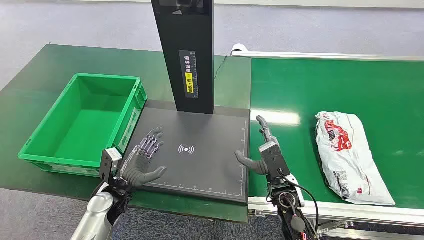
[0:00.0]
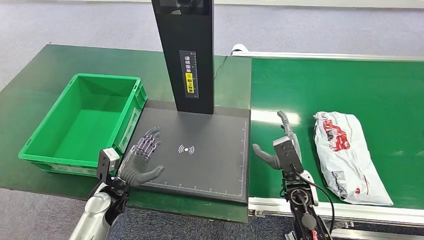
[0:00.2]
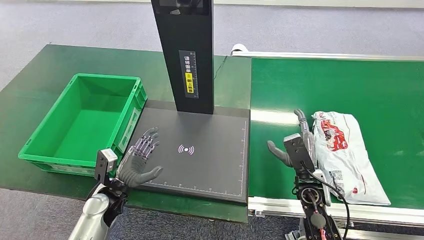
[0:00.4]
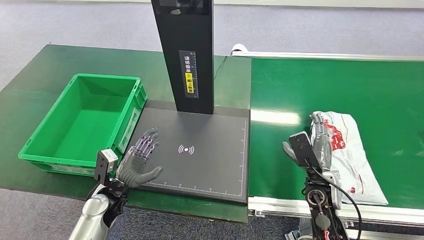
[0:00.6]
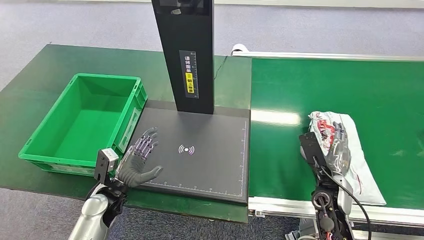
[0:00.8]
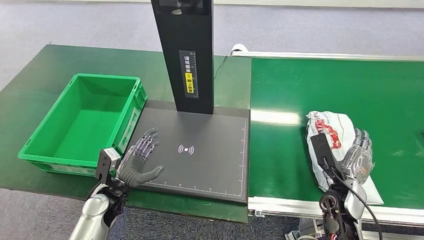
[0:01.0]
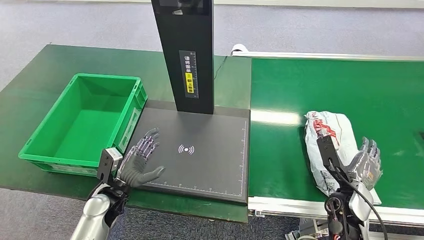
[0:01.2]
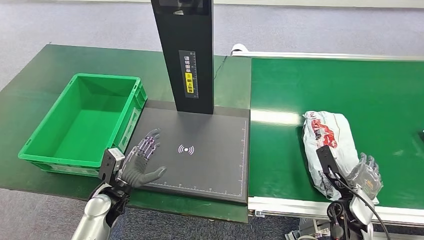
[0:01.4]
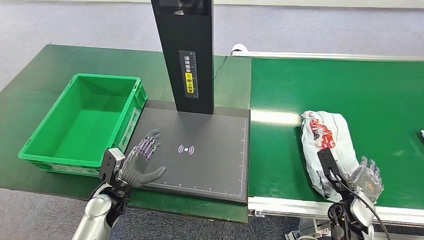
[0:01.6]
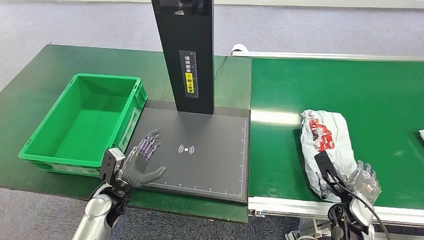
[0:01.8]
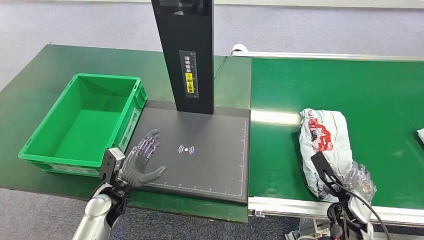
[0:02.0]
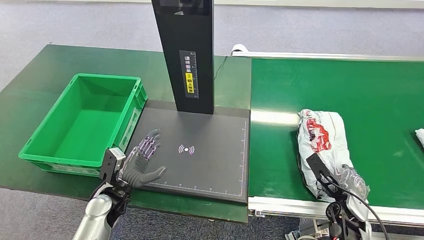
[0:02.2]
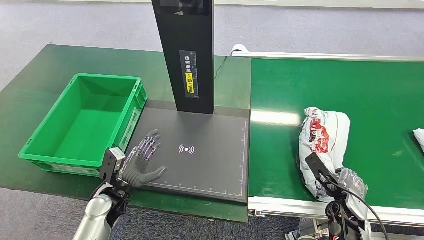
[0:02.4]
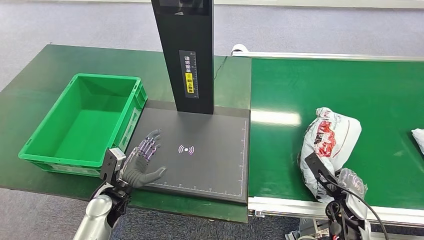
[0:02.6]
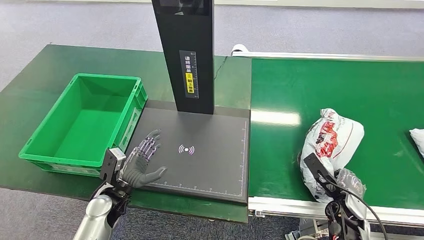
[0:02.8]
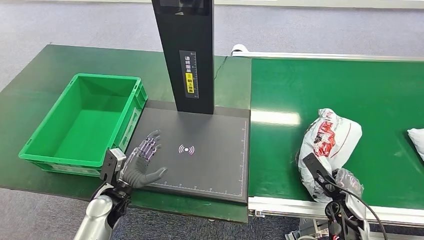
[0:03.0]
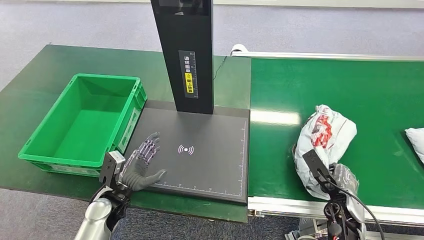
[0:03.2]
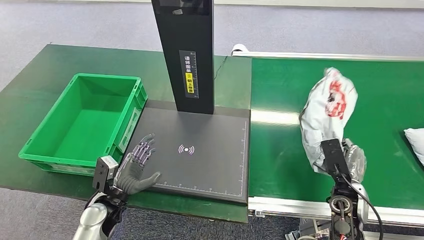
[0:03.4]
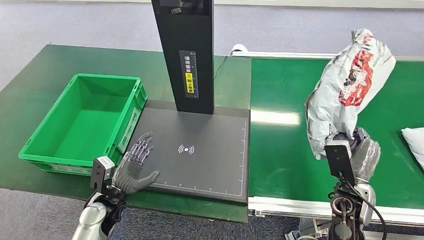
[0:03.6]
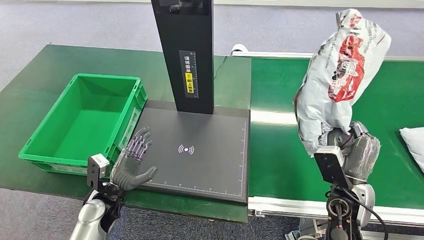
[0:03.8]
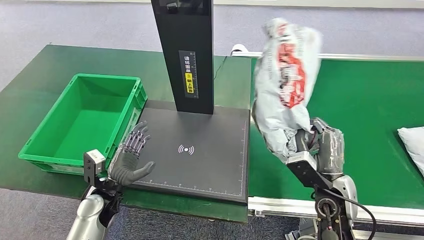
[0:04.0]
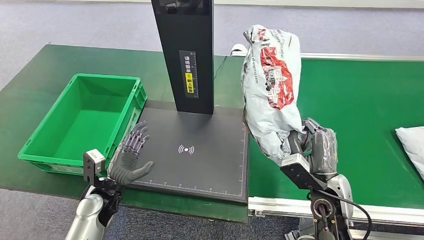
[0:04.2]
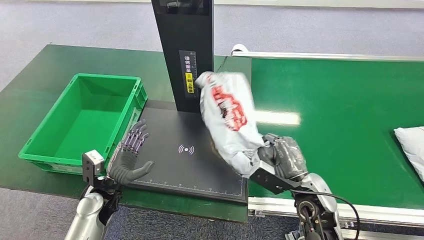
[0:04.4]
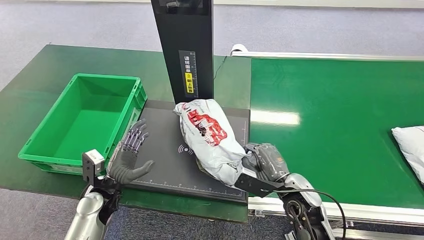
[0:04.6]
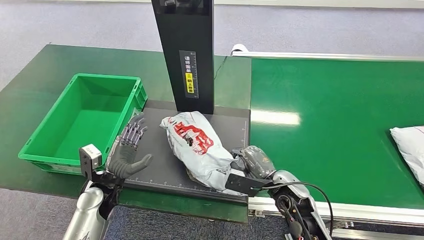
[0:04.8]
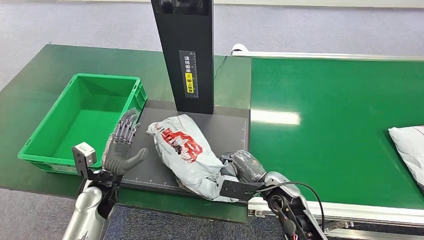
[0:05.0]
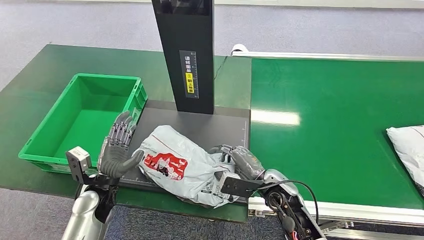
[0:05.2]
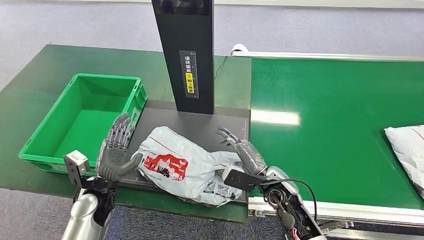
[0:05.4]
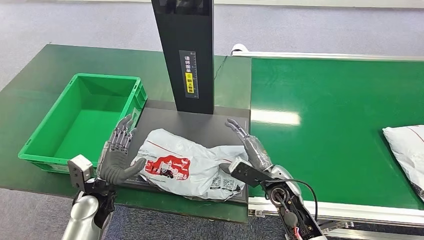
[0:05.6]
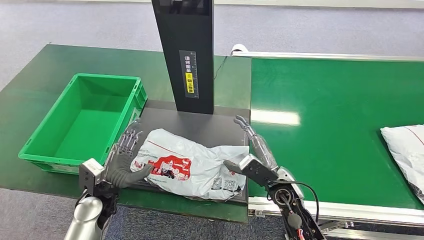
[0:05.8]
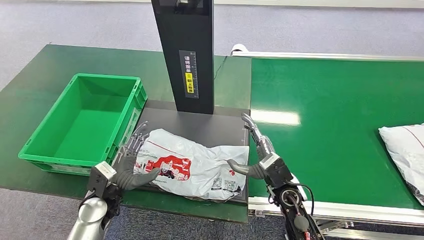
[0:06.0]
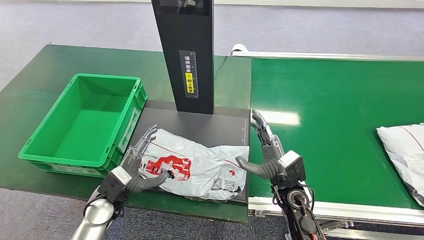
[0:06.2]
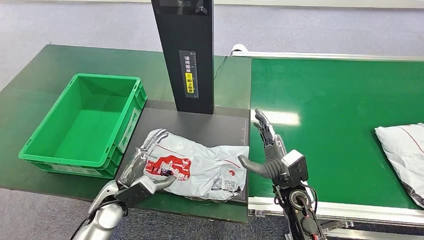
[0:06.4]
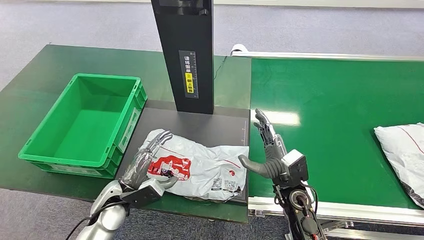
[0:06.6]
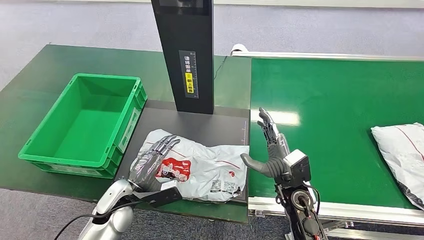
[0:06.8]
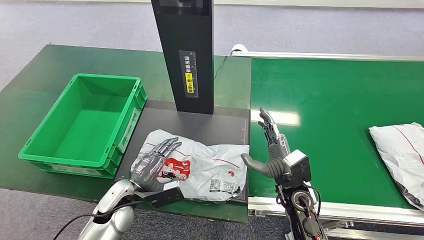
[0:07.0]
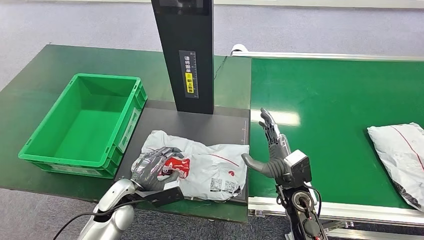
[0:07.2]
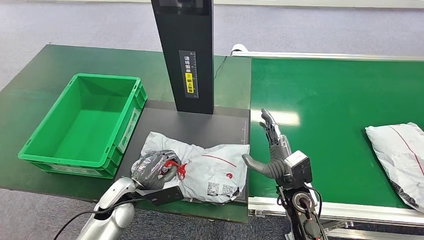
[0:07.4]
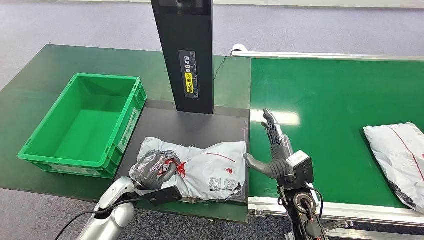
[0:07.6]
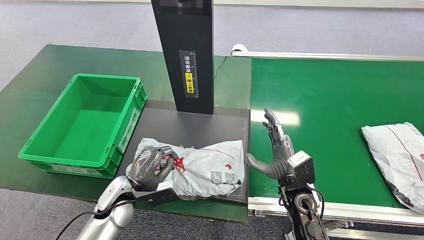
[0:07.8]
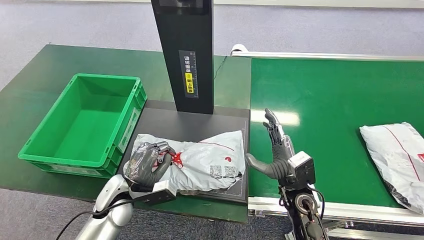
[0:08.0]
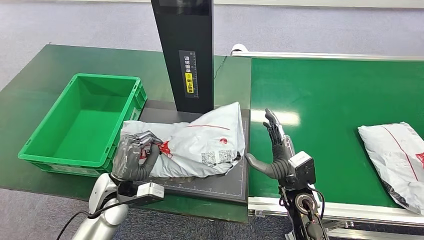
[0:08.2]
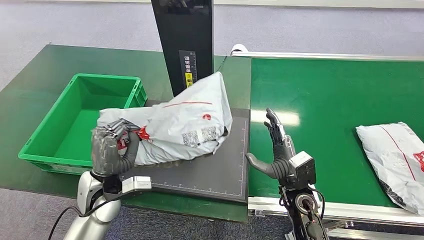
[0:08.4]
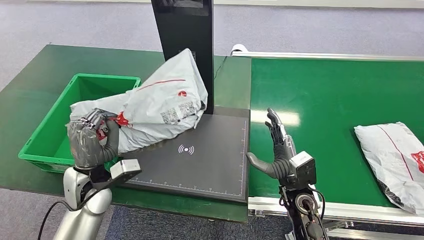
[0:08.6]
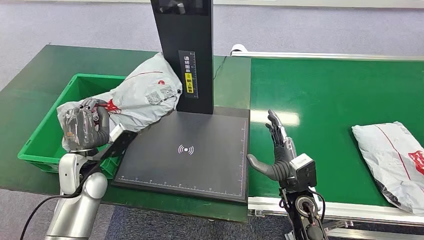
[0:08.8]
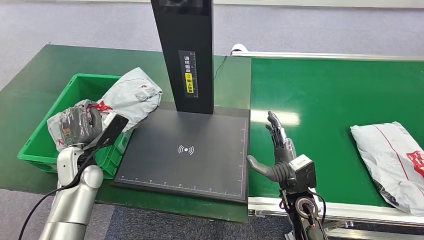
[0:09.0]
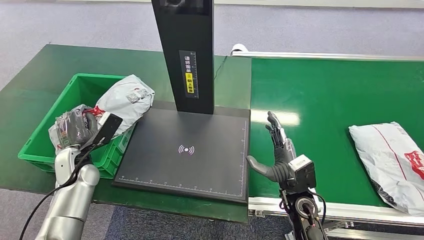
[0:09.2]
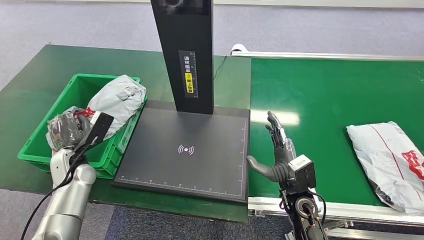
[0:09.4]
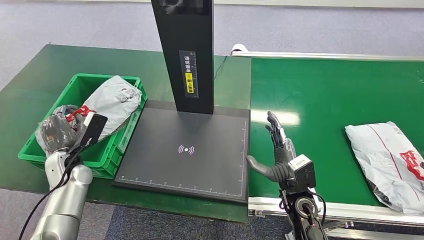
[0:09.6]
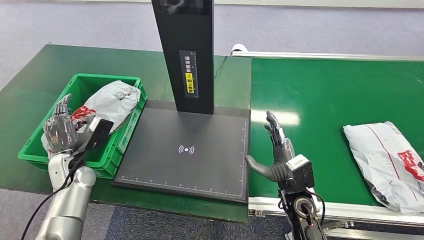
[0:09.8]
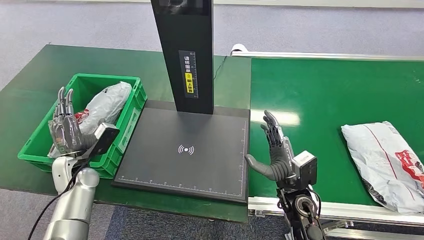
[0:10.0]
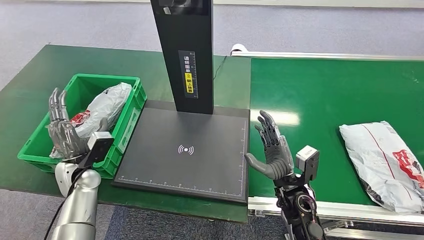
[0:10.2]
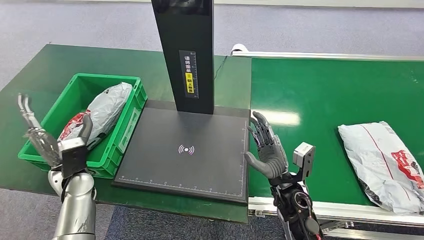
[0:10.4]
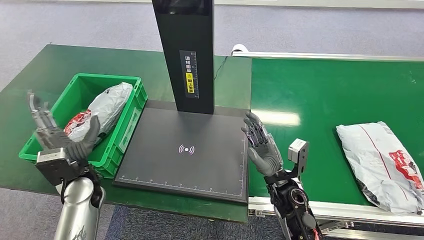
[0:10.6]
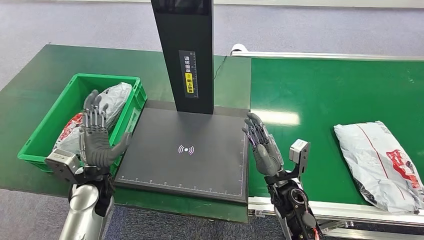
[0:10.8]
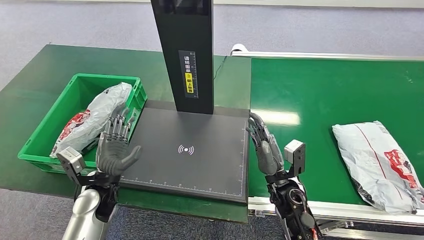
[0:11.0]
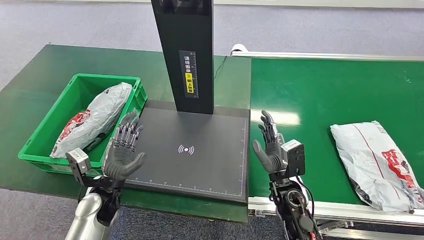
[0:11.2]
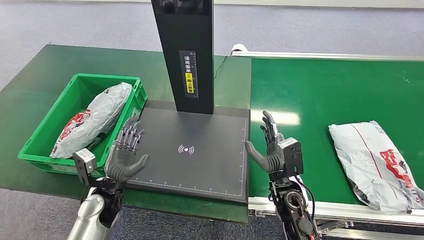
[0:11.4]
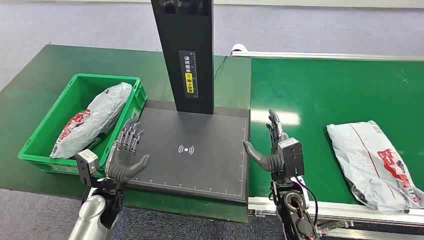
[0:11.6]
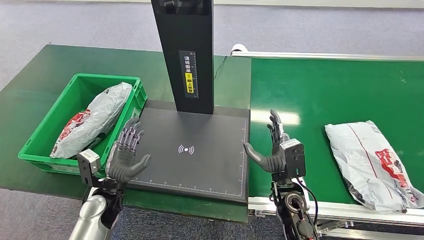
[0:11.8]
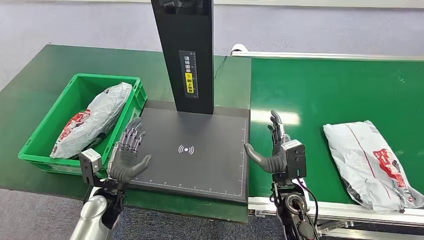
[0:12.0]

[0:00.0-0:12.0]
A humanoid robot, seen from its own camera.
Task of the whole recording: Weigh the package on the weighing device and place it in the left basket.
Step, 0:00.0 to 0:03.8: Pick up the package from the conveyor belt.
Step, 0:04.2 to 0:06.2: Place the package onto the inbound machine.
Step, 0:06.6 to 0:08.4: Pick up the package from the inbound machine.
Step, 0:08.8 to 0:11.8: Place the package into the parcel locker.
0:01.6 to 0:03.0: The hands move only a little.
0:04.4 to 0:06.0: The right hand shifts by approximately 5 cm.
0:10.4 to 0:12.0: The left hand moves to the right and downward, some 10 cm.
